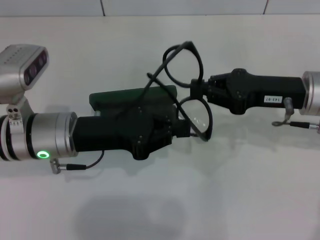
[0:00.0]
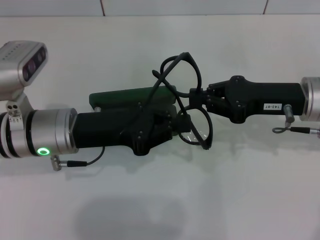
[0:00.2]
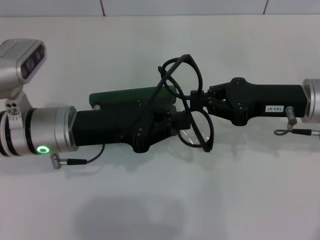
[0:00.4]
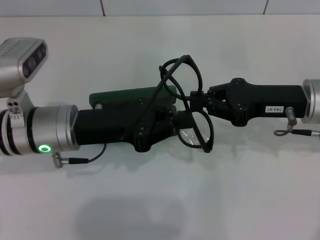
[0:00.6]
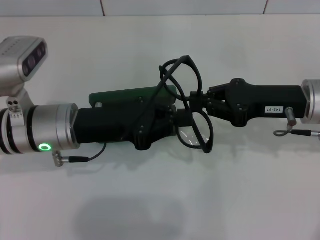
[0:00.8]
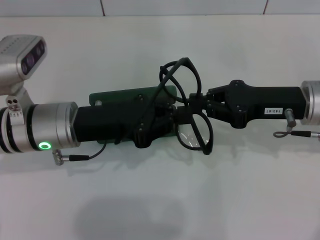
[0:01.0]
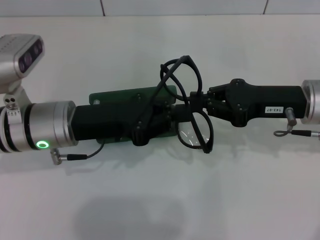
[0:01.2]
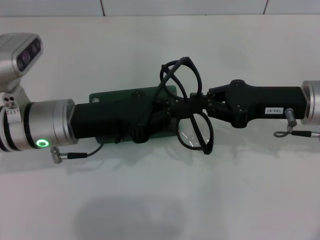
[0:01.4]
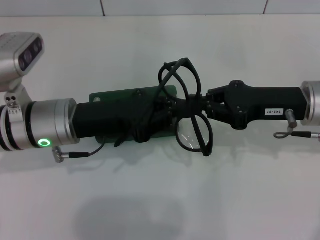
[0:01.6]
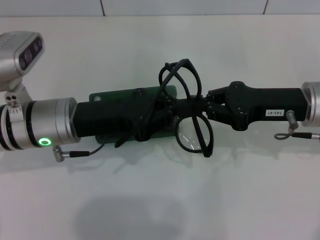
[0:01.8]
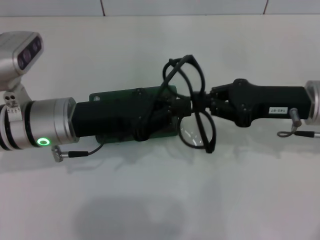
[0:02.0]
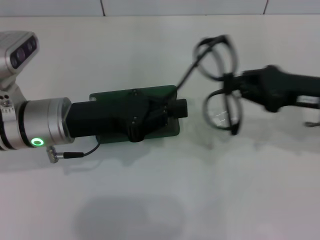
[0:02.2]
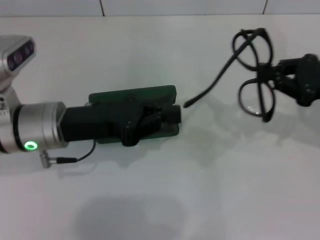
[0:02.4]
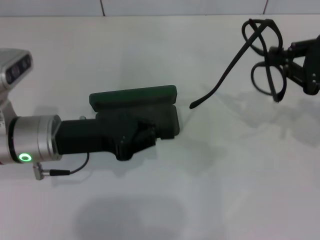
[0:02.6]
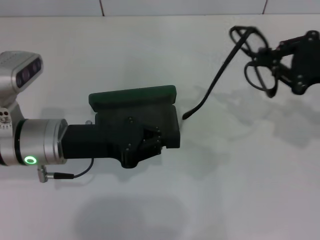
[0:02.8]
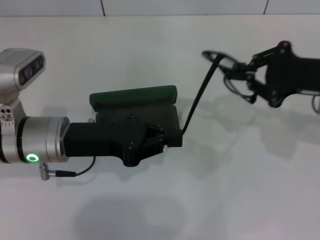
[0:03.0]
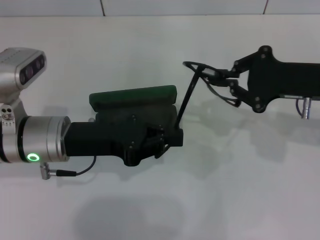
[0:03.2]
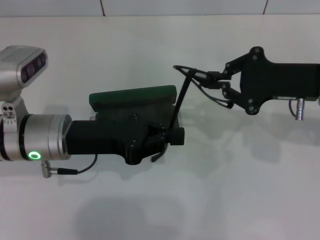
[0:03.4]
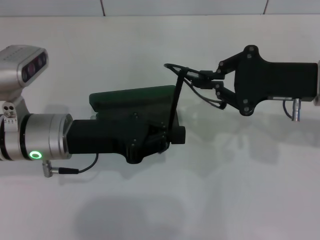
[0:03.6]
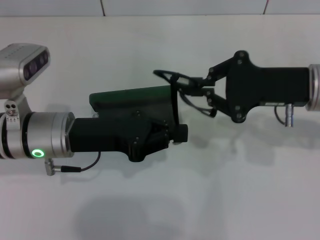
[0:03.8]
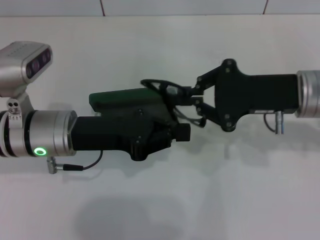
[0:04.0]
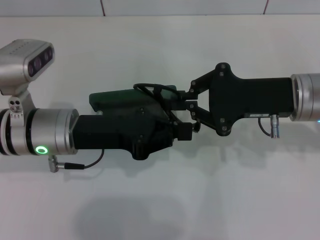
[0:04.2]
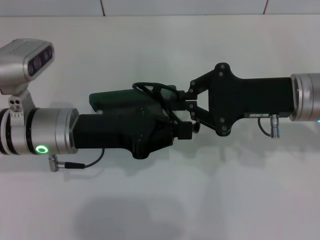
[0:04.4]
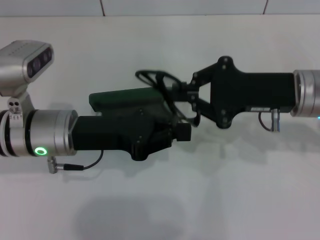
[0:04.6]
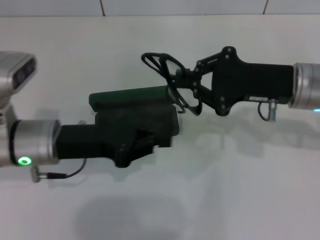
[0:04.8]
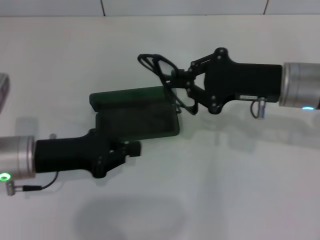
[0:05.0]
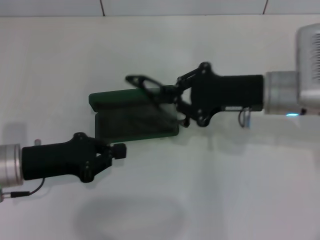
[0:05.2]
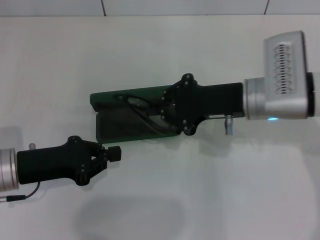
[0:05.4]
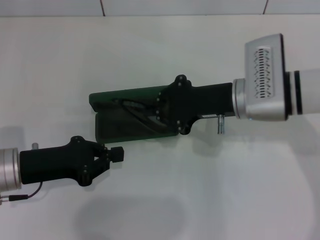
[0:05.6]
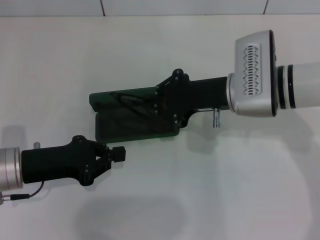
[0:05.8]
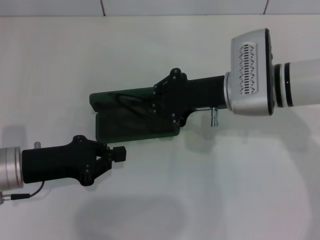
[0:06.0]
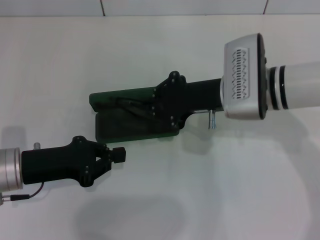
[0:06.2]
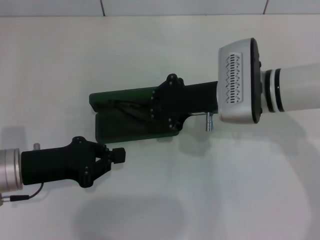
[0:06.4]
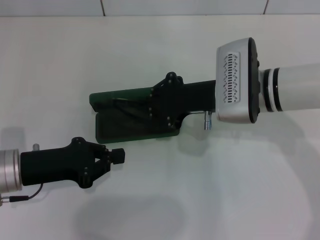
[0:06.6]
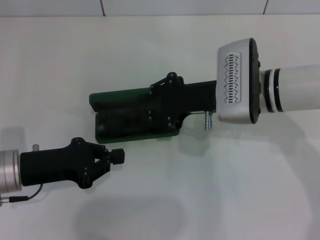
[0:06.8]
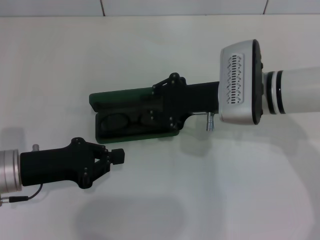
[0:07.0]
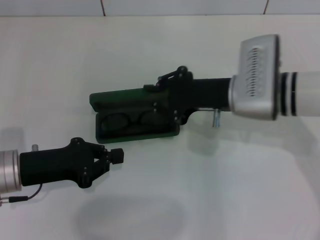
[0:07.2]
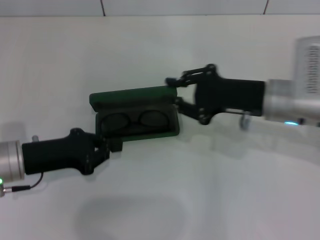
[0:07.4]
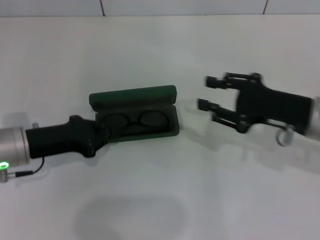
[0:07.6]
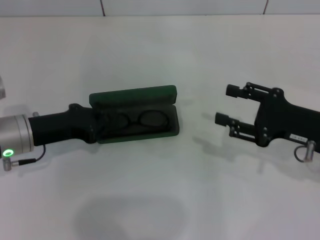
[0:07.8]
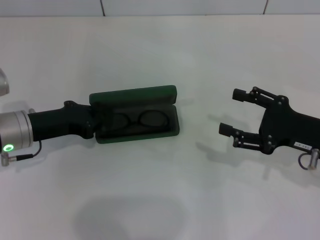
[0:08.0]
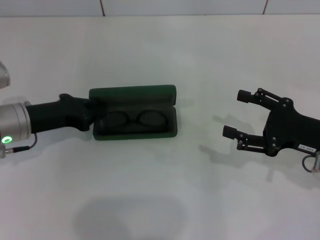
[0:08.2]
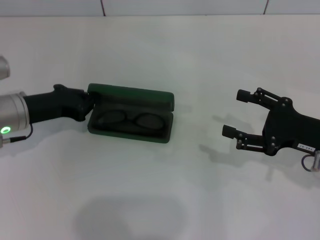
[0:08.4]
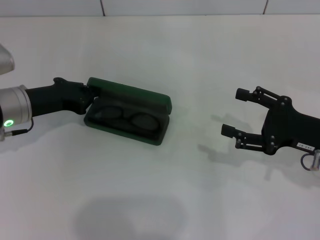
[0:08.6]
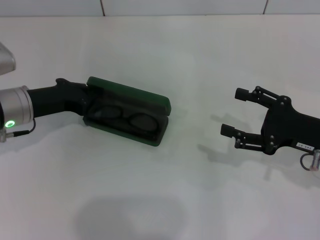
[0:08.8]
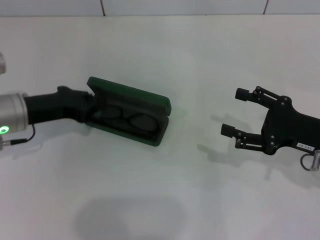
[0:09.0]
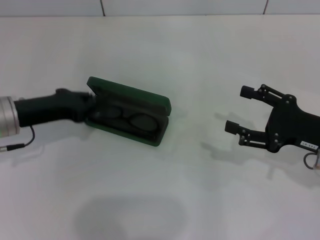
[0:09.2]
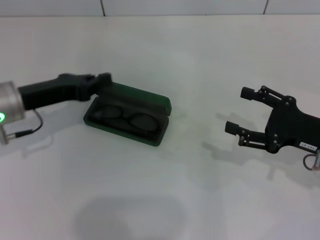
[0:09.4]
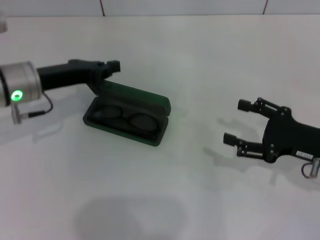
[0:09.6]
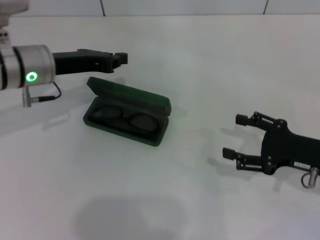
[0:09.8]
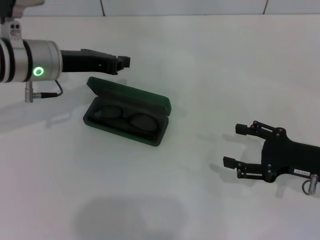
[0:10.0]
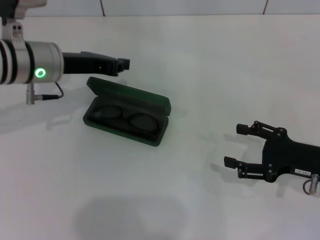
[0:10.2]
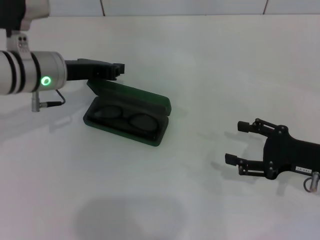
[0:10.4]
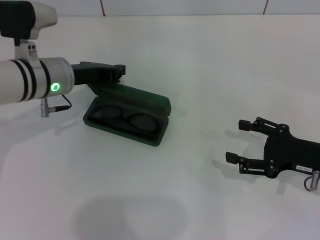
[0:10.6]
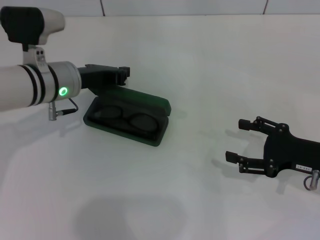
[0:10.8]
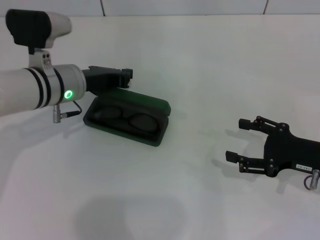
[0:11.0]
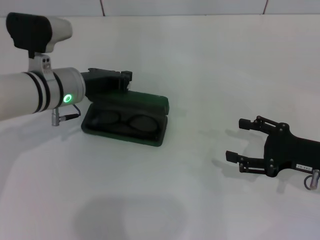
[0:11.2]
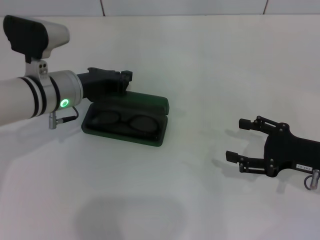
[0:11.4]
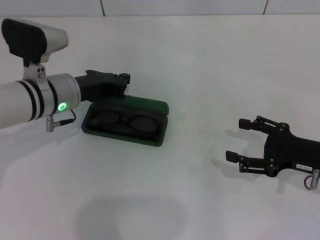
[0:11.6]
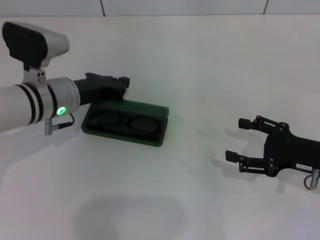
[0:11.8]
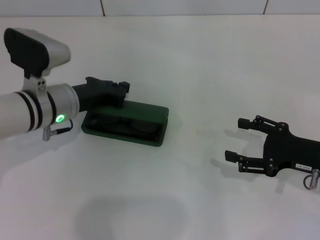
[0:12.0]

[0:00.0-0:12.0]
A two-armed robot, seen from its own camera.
Step, 0:00.0 to 0:04.6: Lift the glasses with your right hand.
Step, 0:04.8 to 0:07.2: Put the glasses into the case with your right hand.
0:00.0 to 0:01.6: Both grippers stay about where they are.
0:03.0 to 0:04.4: The right gripper shifts roughly 5 cm to the left.
0:04.4 to 0:06.0: The two grippers go about 10 cm to the left.
0:06.0 to 0:07.6: The right gripper goes about 10 cm to the right and backward.
0:07.6 to 0:09.0: The right gripper shifts by some 5 cm, and opens its fingers.
0:09.0 to 0:10.4: The left gripper moves to the right, approximately 5 cm.
0:10.4 to 0:12.0: The left gripper changes place by some 5 cm.

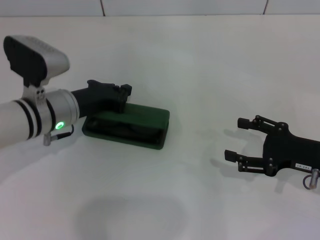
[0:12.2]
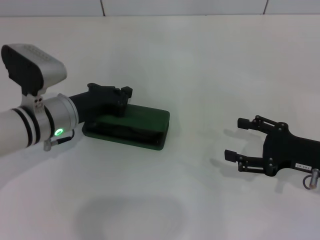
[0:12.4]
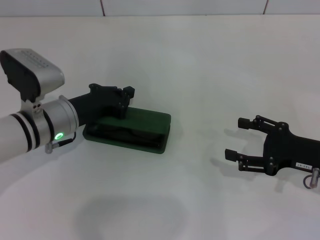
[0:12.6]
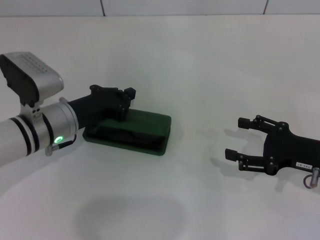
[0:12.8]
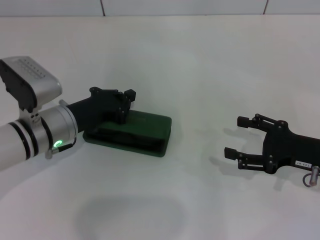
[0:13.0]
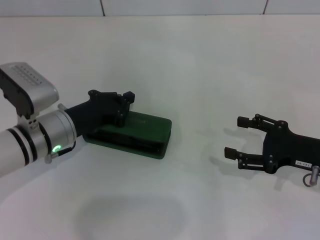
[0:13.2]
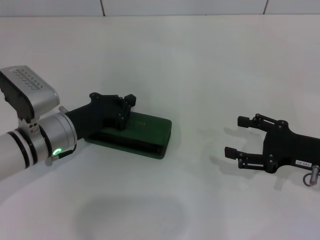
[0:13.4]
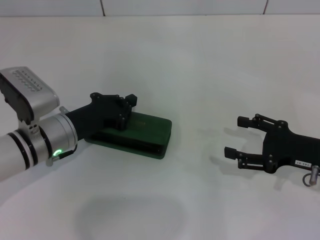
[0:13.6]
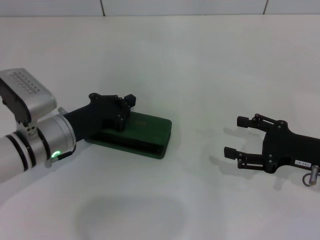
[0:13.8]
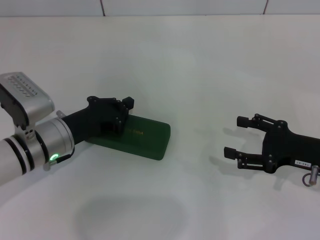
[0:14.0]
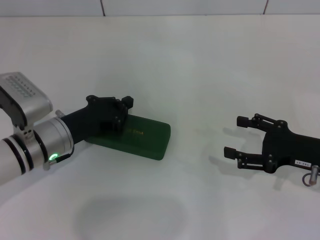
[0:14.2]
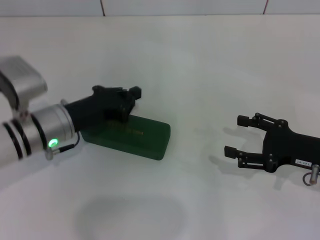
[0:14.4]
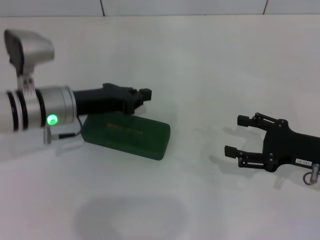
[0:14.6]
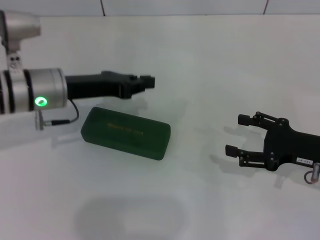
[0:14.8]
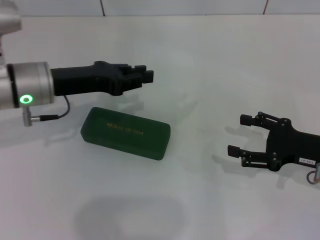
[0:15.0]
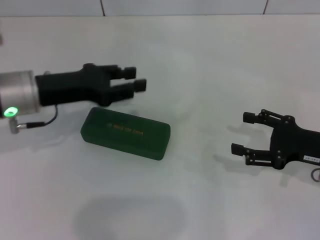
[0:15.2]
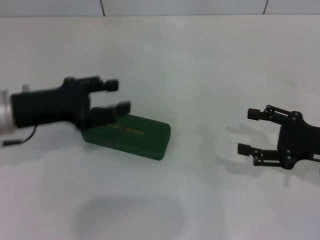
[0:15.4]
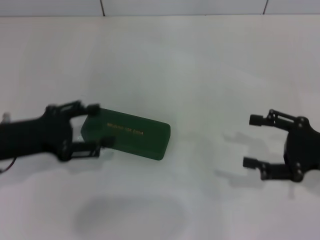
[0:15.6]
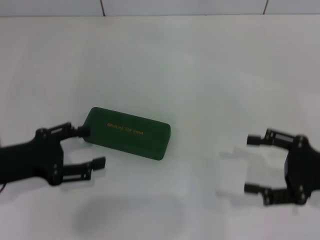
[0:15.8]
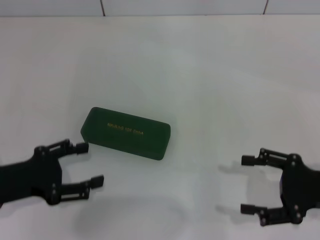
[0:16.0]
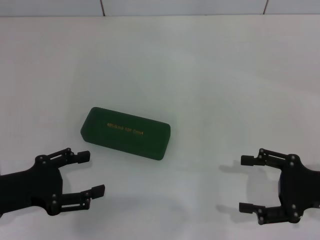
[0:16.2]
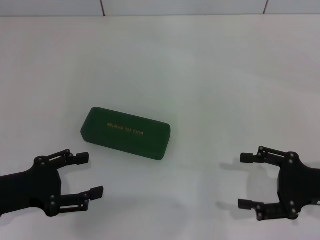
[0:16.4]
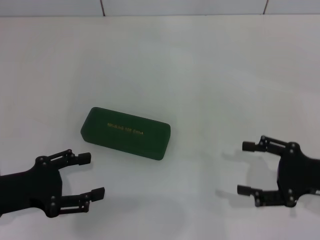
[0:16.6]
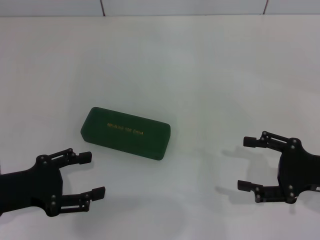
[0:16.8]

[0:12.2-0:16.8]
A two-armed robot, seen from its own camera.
Step, 0:12.2 to 0:14.4: Close the glasses case with your left hand.
0:12.2 to 0:13.8: The grippers move only a little.
0:13.8 to 0:15.2: The left gripper goes some 10 cm upward.
0:15.2 to 0:16.8: The left gripper is displaced backward and to the left by about 15 cm, and opens up.

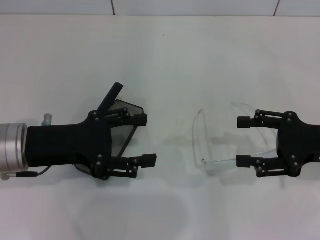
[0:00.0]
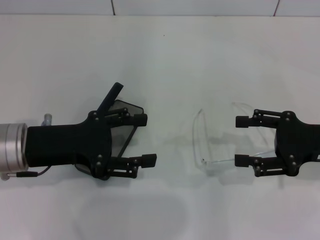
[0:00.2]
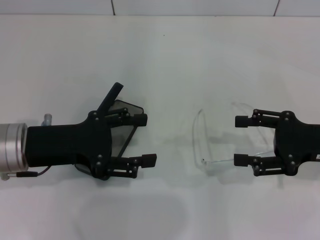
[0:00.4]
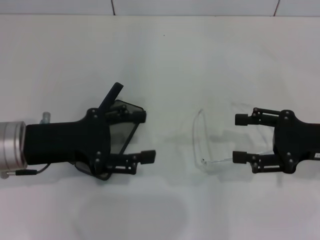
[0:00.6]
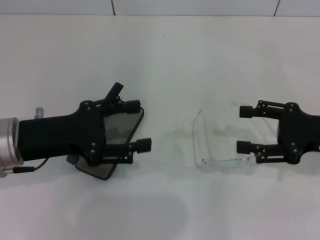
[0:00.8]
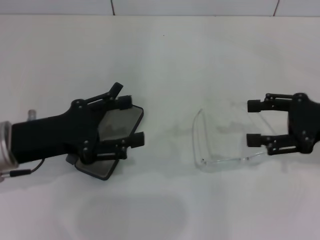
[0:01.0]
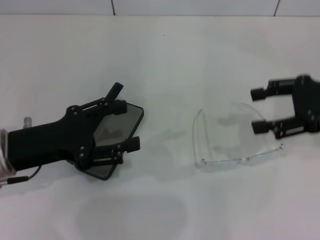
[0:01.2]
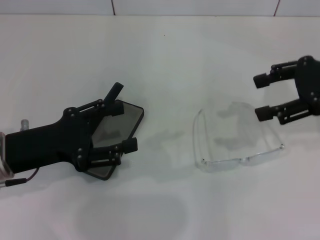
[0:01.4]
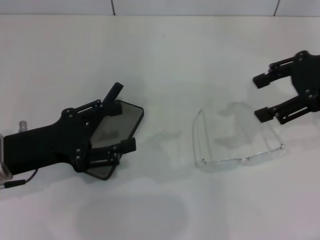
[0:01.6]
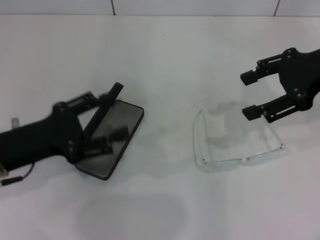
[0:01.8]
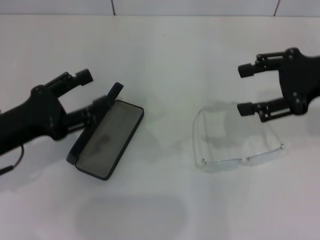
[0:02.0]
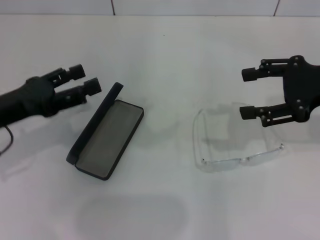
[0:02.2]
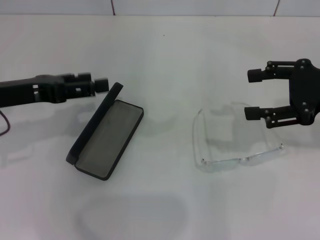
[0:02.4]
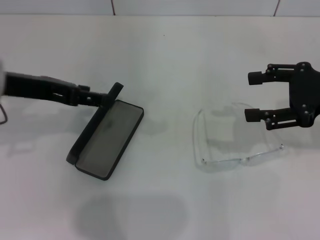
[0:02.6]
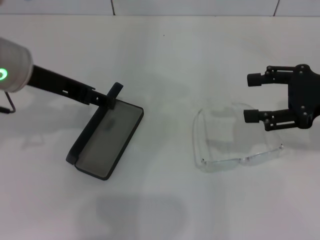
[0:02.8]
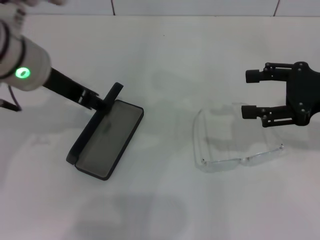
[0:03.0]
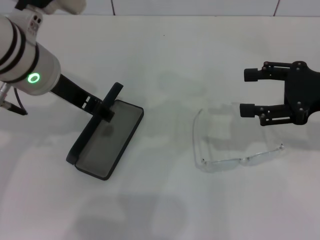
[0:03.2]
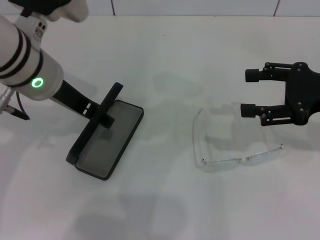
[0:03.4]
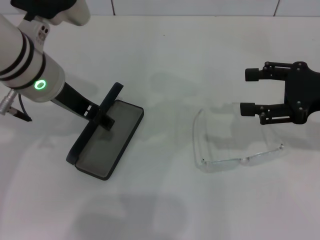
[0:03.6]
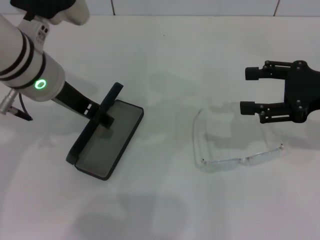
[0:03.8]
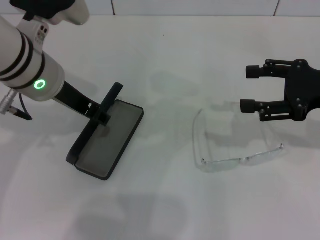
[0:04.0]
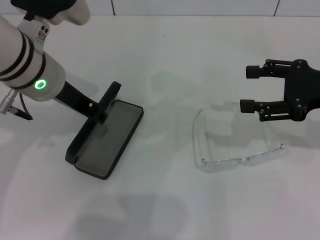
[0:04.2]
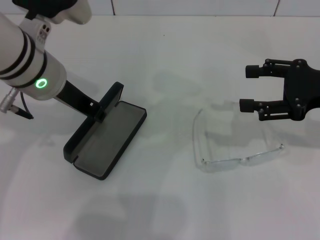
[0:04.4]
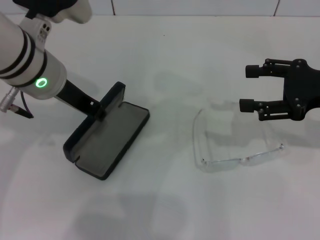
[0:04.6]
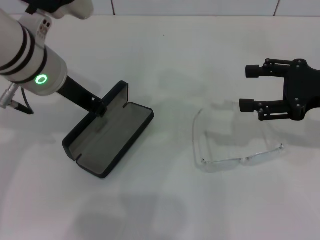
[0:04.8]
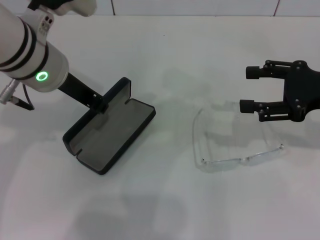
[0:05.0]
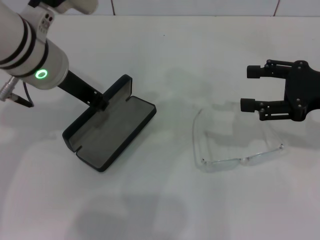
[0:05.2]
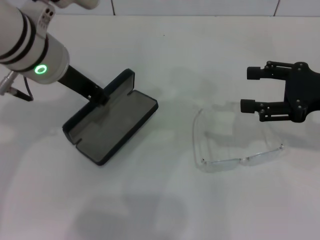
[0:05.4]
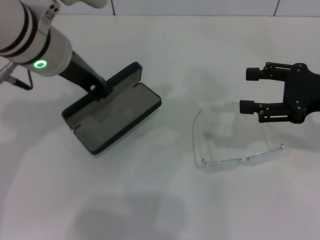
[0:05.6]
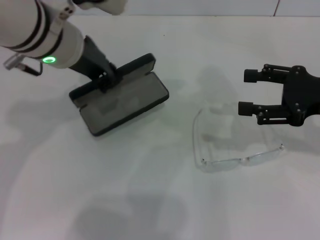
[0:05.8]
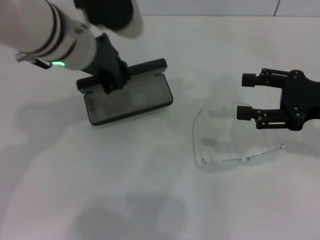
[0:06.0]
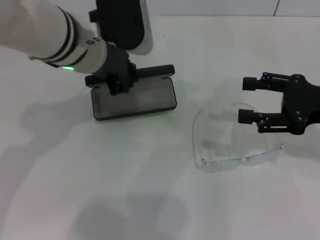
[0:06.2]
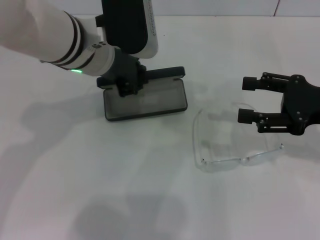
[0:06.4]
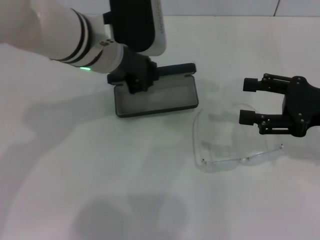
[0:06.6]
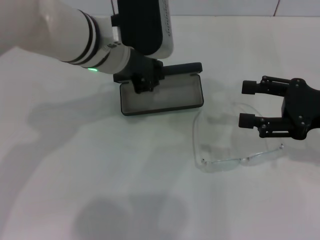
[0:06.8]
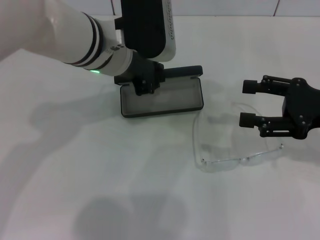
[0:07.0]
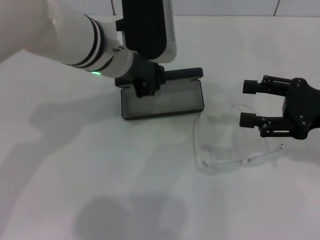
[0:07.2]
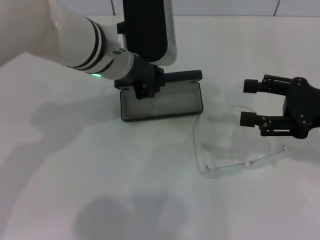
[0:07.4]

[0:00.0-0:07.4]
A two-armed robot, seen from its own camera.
Step, 0:00.0 to 0:04.2: Grab the glasses case with your left hand.
0:00.0 to 0:01.4: The right gripper heads upward and forward, covering about 15 cm.
0:01.4 to 0:03.0: The left gripper goes roughly 15 cm upward, forward and to the right. Meanwhile the right gripper moves approximately 5 cm.
0:03.0 to 0:04.4: The left gripper closes.
